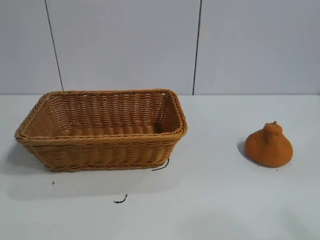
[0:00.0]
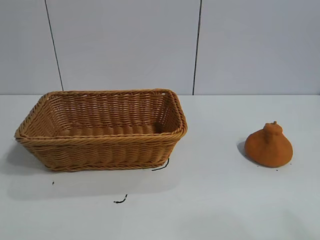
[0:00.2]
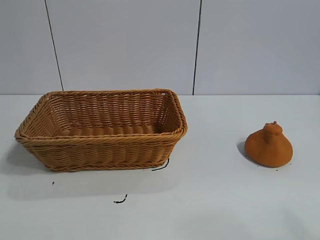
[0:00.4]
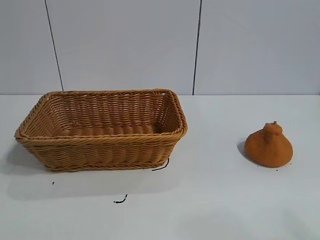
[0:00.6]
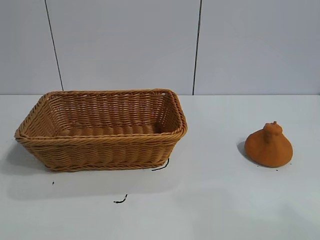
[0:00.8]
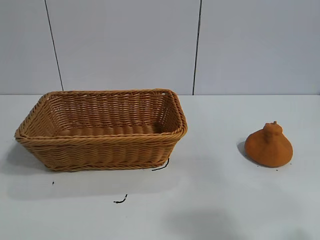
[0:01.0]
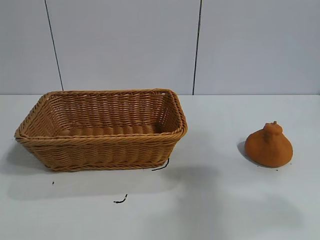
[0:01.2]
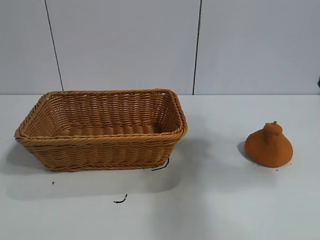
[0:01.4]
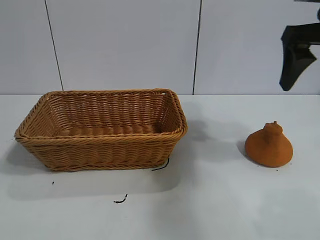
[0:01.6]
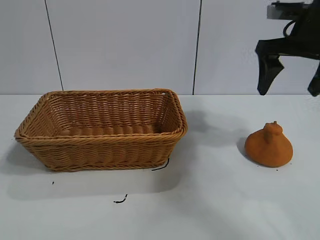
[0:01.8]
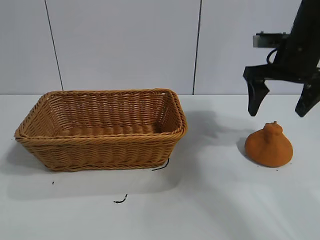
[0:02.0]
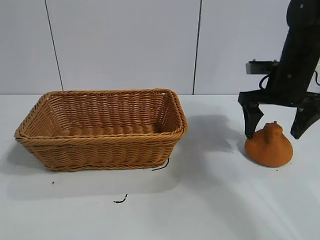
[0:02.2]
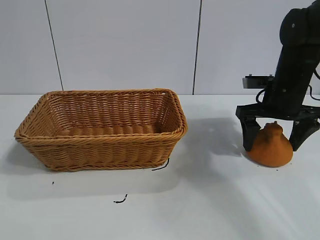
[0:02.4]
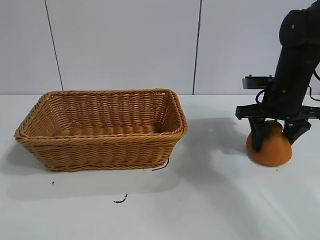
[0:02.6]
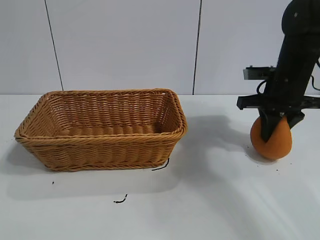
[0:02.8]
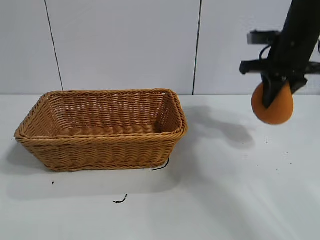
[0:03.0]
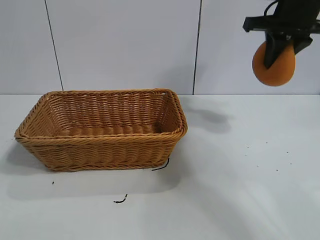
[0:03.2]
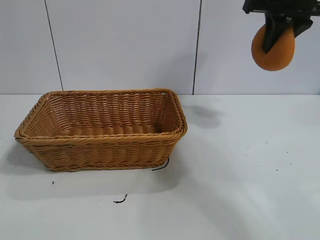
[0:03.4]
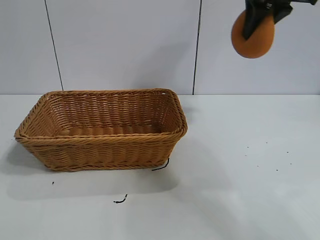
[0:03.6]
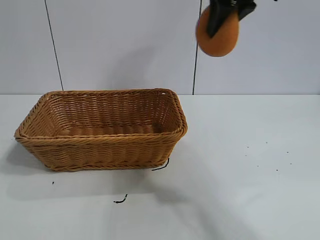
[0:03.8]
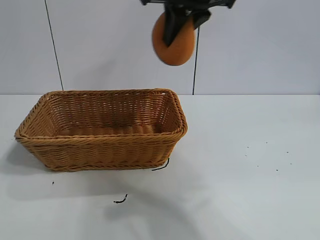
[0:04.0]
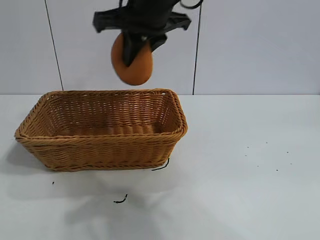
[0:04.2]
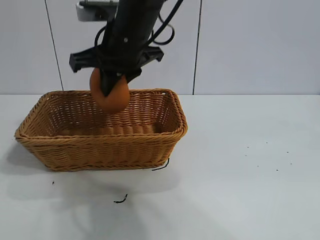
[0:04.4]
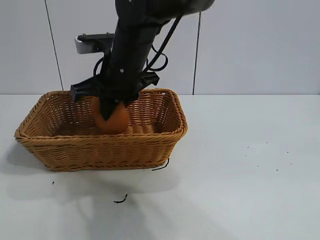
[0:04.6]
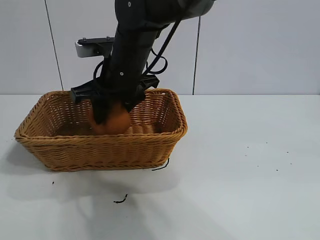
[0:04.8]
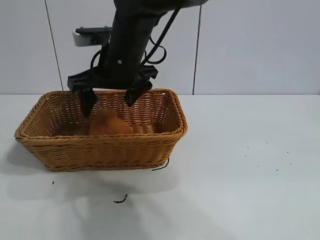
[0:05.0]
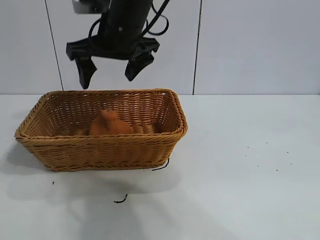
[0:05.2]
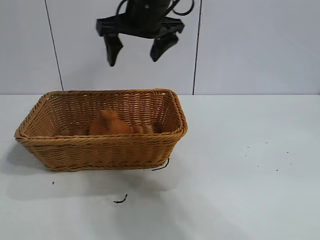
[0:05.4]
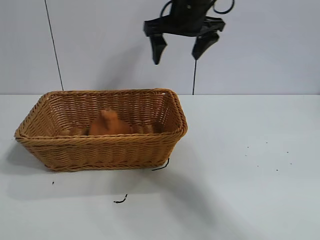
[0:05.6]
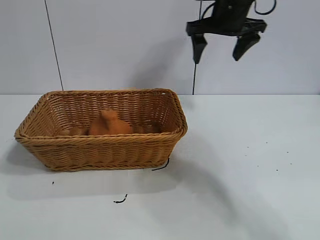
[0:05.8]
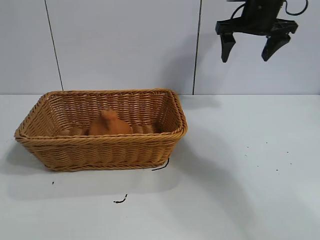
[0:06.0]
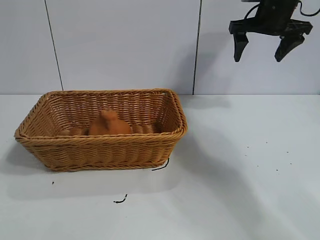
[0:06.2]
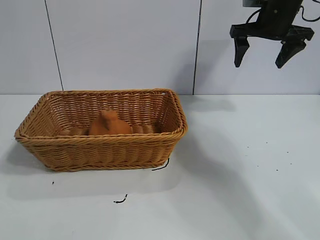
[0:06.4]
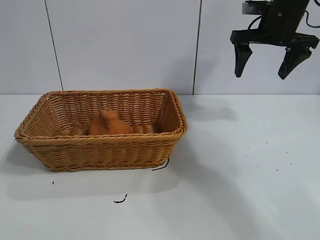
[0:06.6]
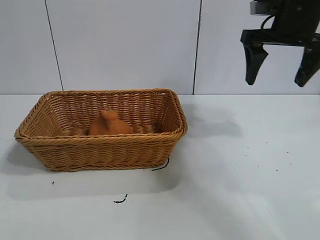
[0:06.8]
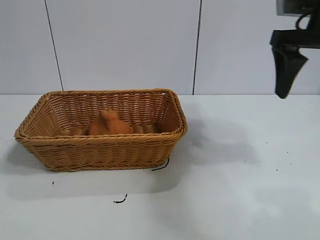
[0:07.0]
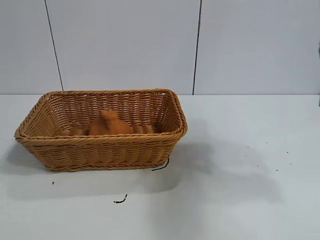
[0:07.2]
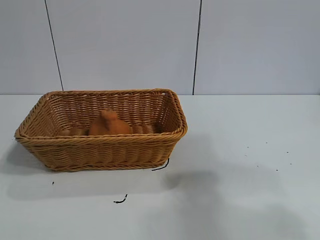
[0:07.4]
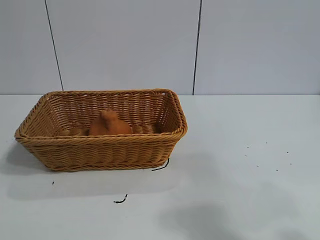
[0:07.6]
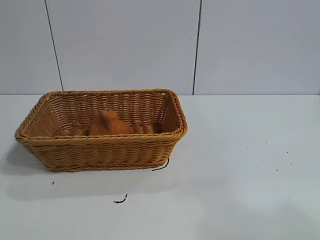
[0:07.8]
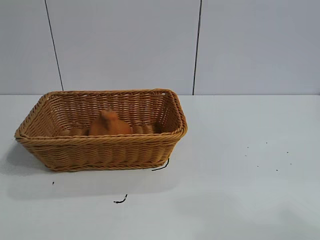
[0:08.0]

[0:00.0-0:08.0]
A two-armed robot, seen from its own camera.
Task of the whole recording: pick up the orange and put it into the basket.
Step, 0:00.8 to 0:02.8: Grasp the orange with right gripper.
Step, 0:03.0 to 0:04.8: Place the orange in the basket with right gripper.

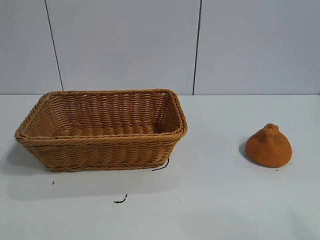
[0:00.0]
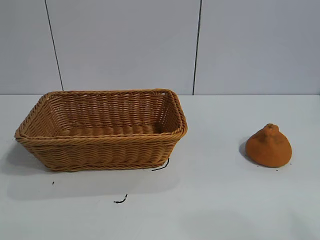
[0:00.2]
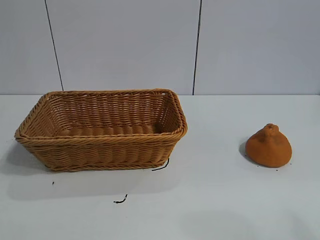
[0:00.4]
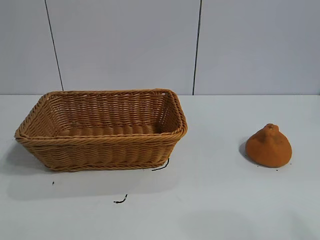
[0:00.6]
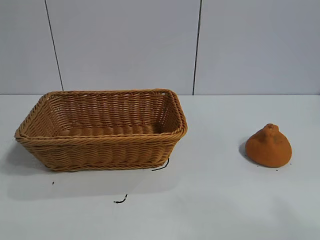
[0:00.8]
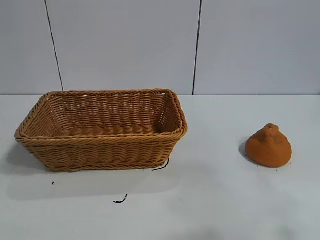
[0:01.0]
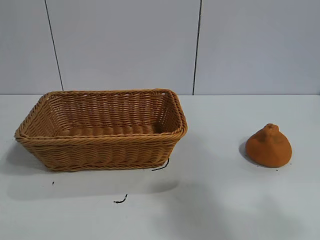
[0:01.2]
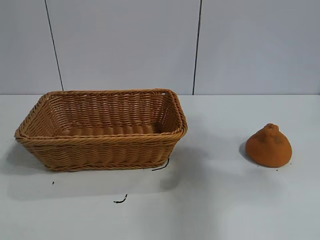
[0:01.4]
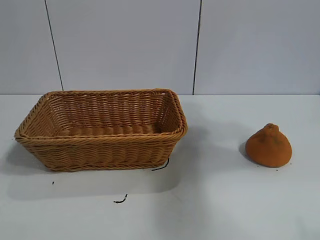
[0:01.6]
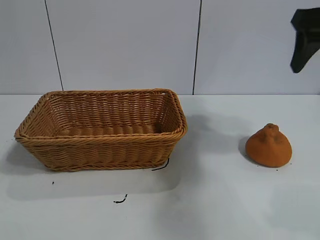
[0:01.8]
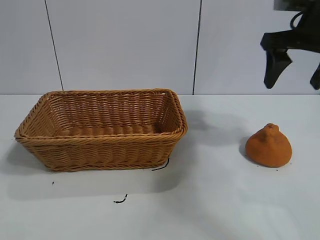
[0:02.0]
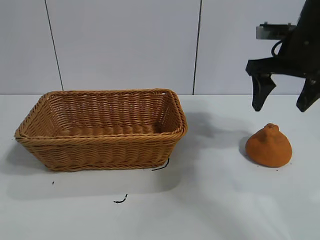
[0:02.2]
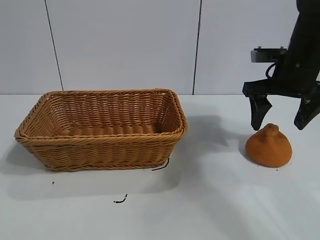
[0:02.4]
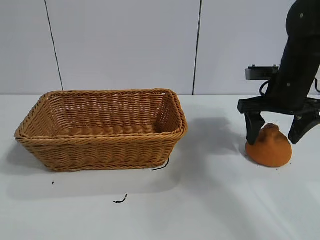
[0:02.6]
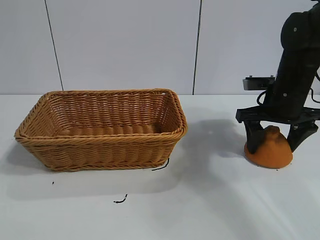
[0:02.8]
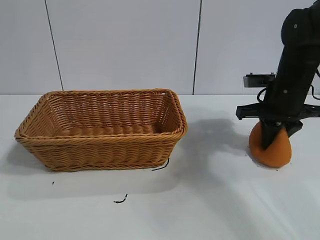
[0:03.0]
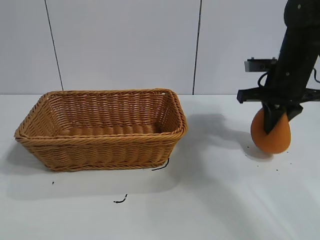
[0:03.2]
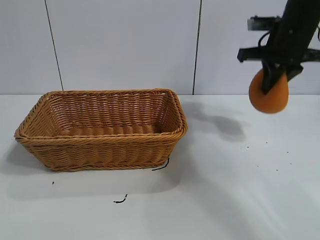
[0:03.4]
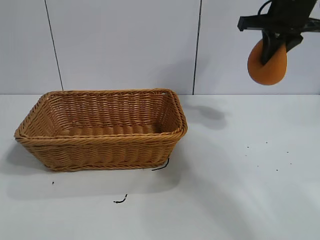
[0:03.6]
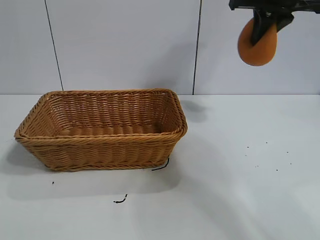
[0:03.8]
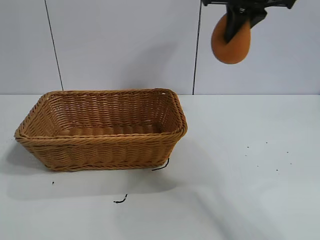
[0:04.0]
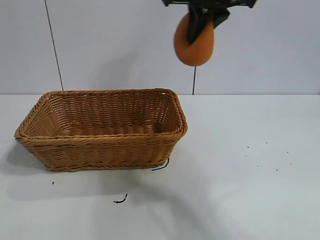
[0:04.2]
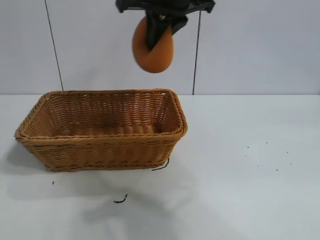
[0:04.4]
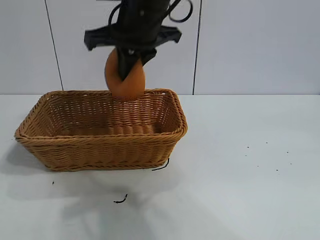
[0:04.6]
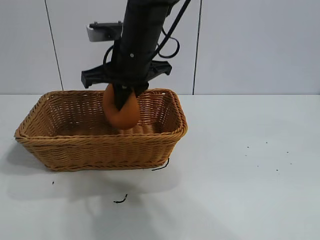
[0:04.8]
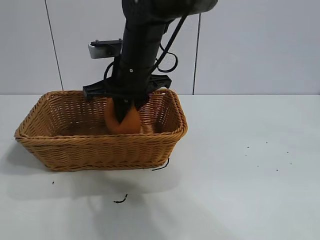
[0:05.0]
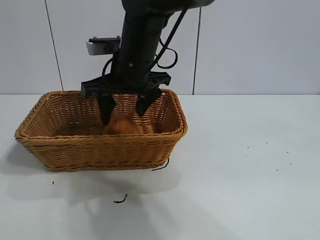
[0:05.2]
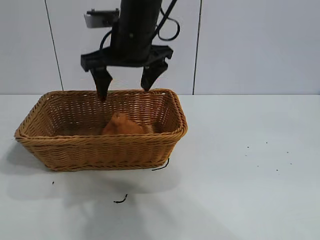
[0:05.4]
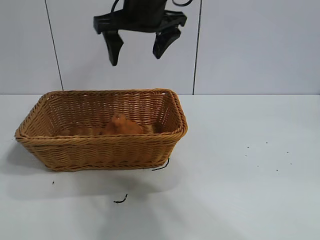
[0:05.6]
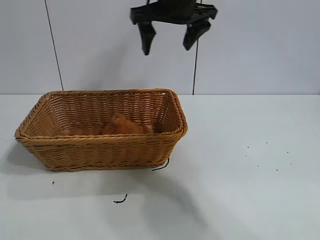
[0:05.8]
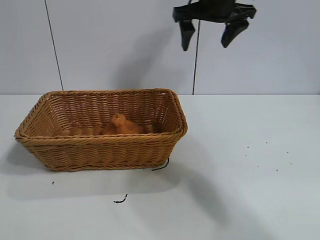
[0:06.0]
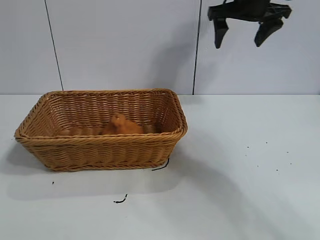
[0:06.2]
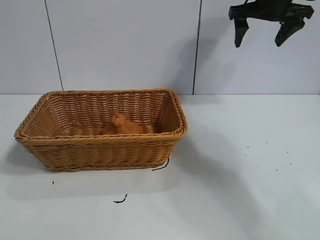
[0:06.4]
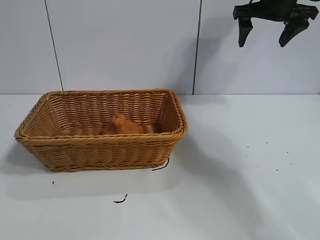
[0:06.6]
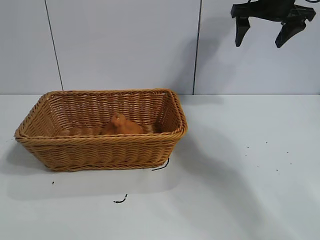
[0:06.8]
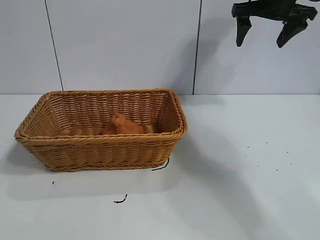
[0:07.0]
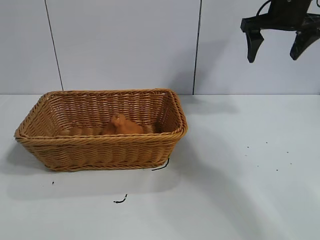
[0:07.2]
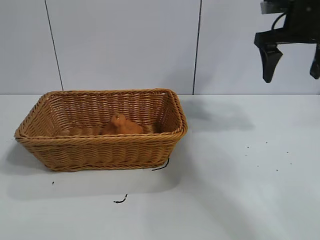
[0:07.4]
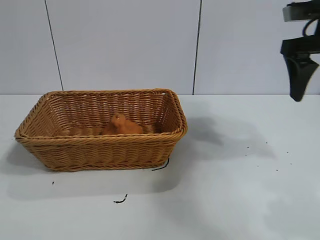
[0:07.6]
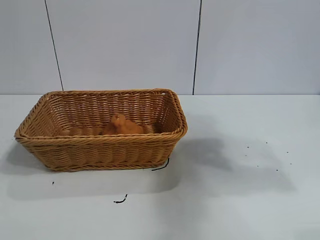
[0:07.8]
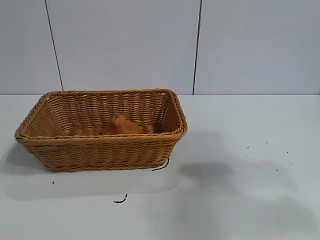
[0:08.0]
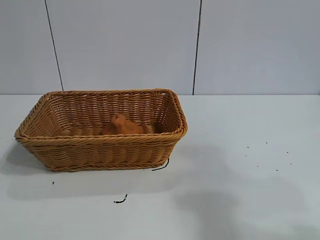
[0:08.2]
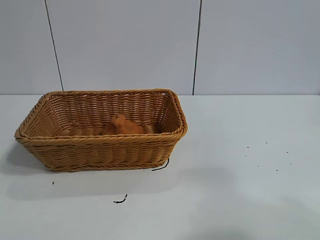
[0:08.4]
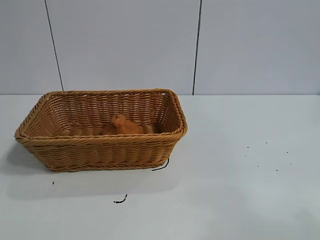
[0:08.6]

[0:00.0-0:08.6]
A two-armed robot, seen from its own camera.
Task of the whole recording: pick up the orange and put it into the basket.
Step, 0:00.8 to 0:03.0: Grasp the orange with right gripper.
Step, 0:03.4 to 0:05.2: Place the orange in the basket with right gripper.
